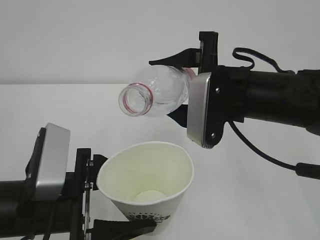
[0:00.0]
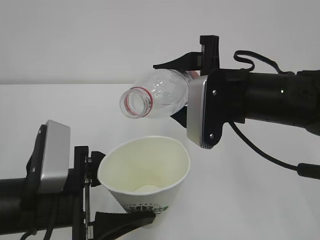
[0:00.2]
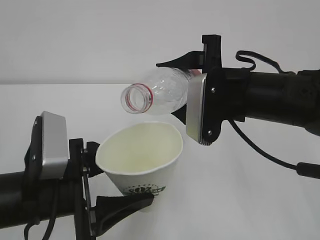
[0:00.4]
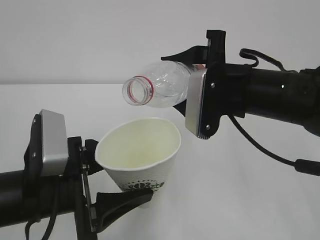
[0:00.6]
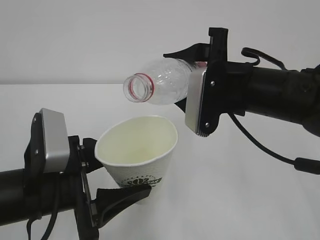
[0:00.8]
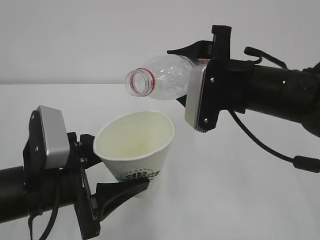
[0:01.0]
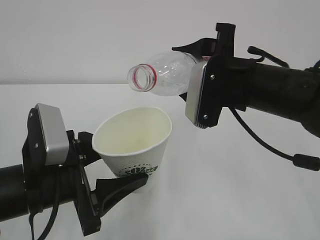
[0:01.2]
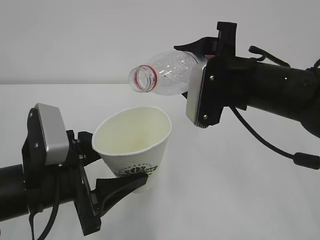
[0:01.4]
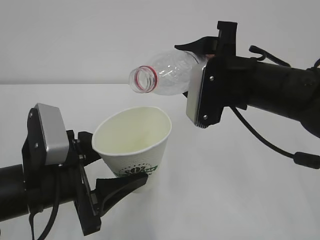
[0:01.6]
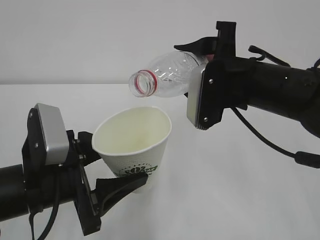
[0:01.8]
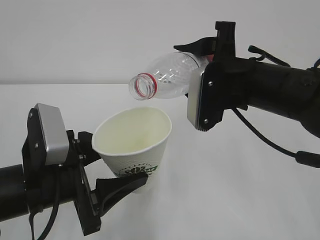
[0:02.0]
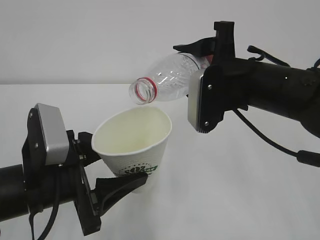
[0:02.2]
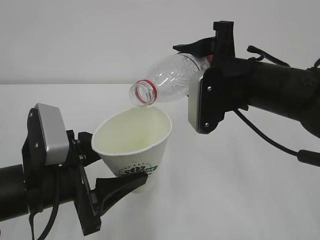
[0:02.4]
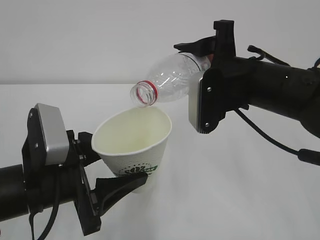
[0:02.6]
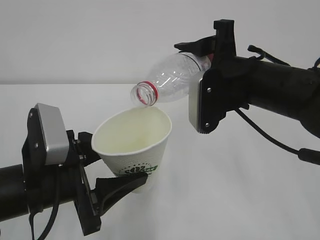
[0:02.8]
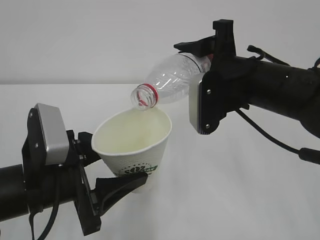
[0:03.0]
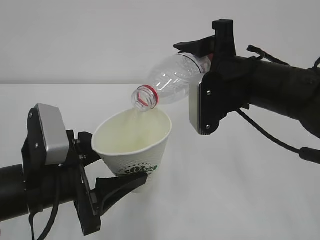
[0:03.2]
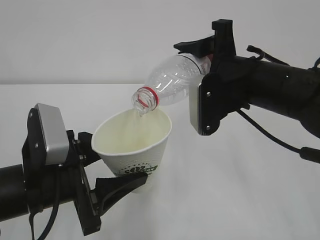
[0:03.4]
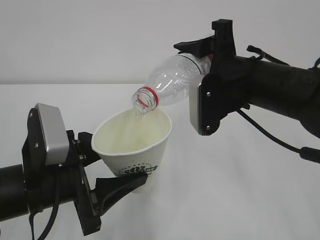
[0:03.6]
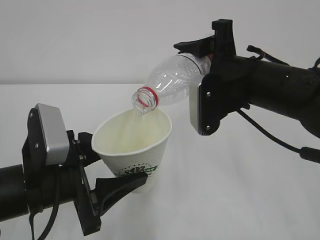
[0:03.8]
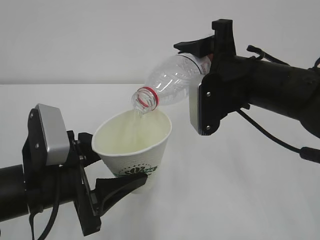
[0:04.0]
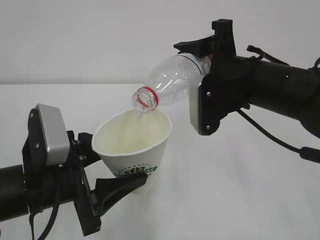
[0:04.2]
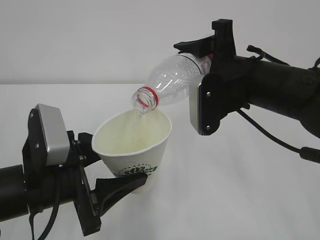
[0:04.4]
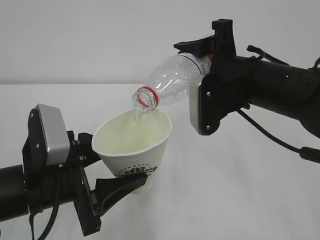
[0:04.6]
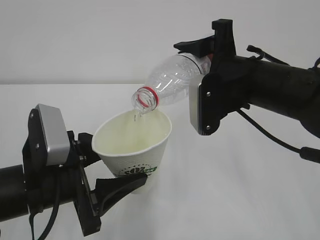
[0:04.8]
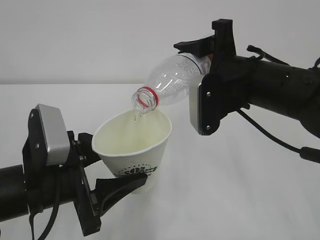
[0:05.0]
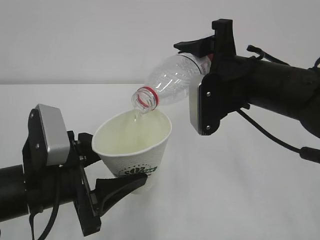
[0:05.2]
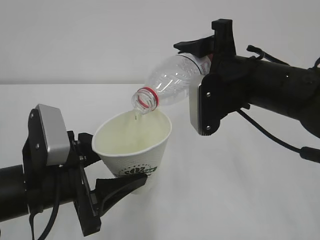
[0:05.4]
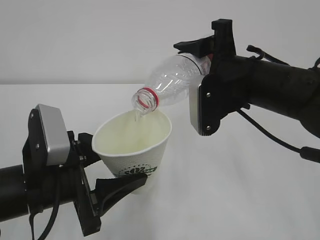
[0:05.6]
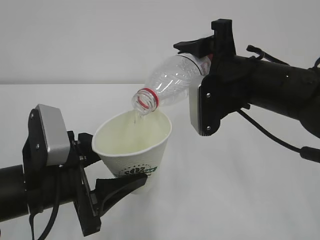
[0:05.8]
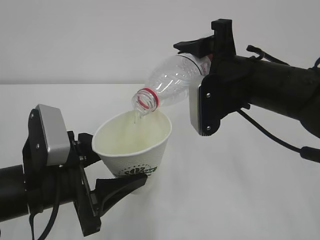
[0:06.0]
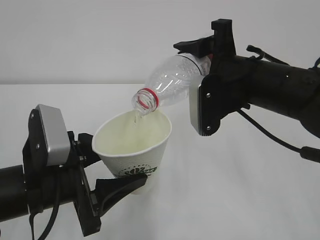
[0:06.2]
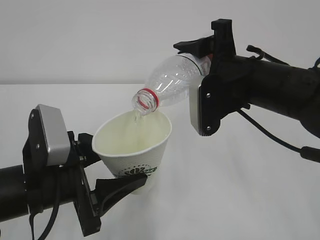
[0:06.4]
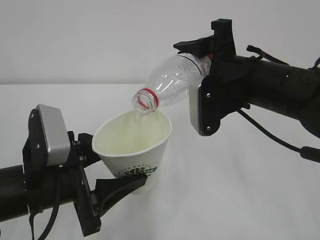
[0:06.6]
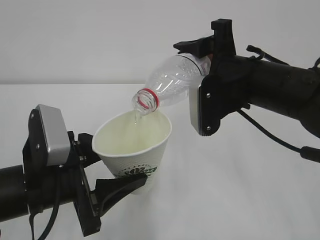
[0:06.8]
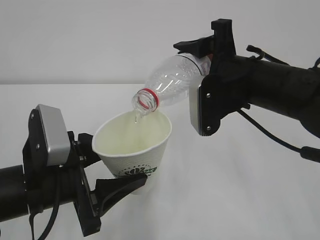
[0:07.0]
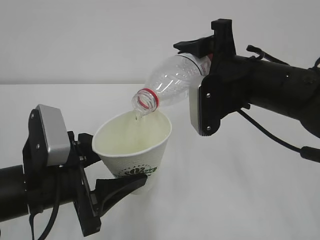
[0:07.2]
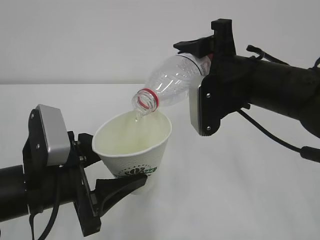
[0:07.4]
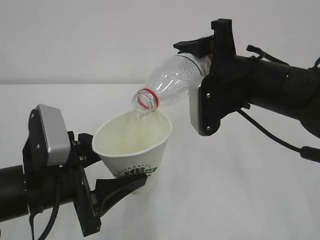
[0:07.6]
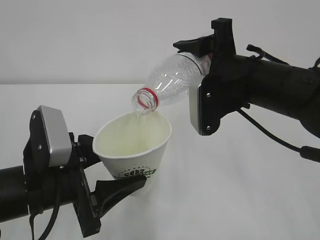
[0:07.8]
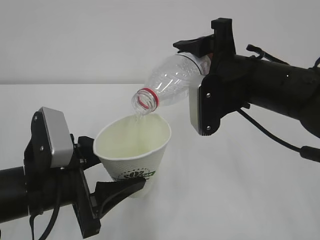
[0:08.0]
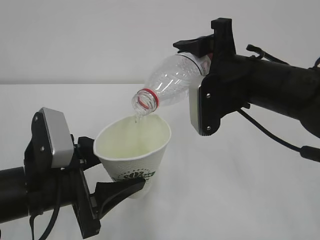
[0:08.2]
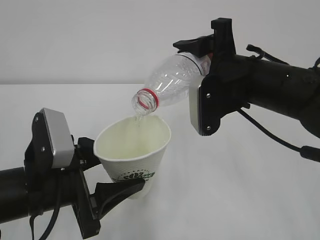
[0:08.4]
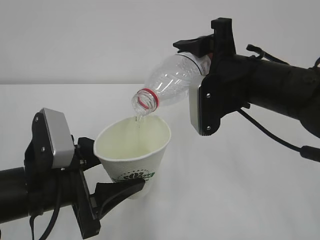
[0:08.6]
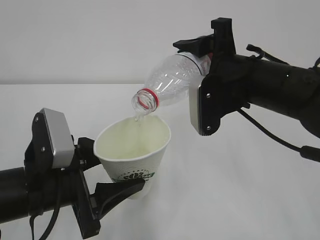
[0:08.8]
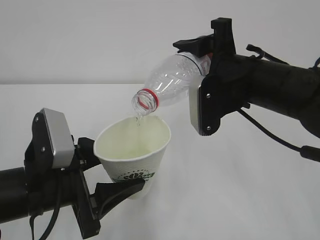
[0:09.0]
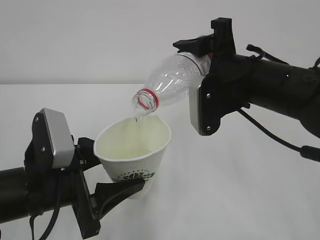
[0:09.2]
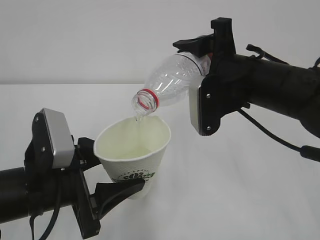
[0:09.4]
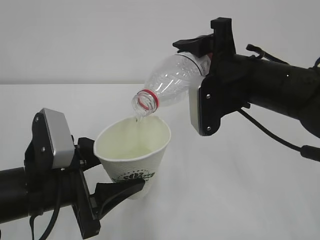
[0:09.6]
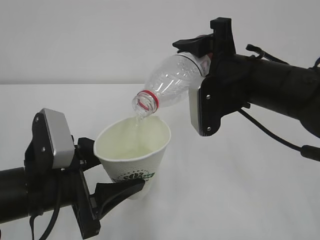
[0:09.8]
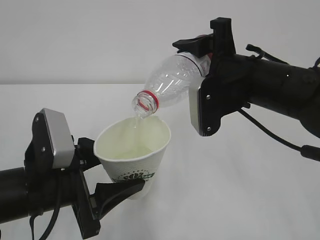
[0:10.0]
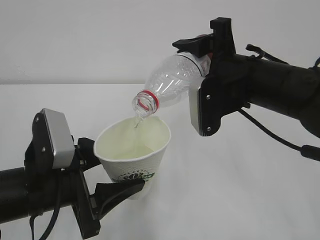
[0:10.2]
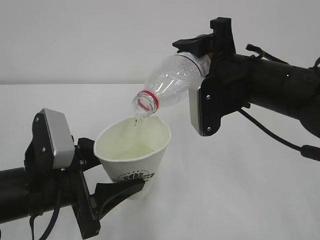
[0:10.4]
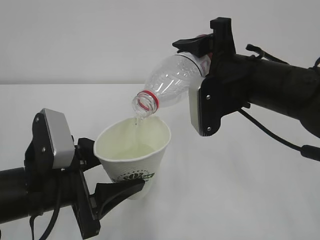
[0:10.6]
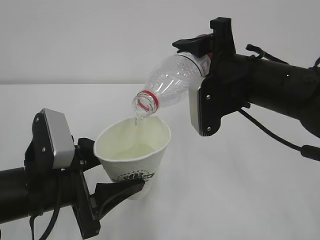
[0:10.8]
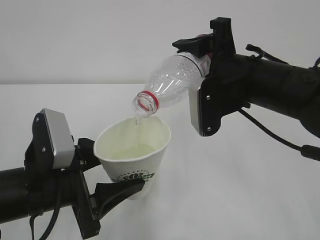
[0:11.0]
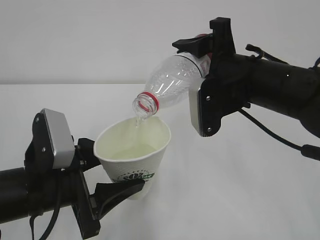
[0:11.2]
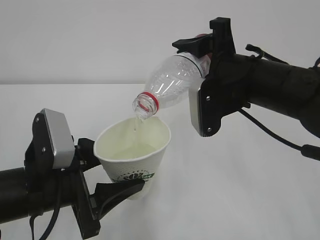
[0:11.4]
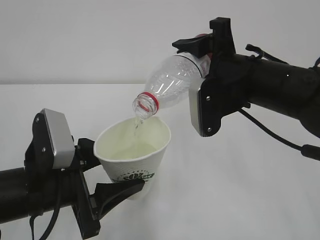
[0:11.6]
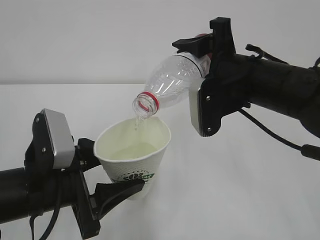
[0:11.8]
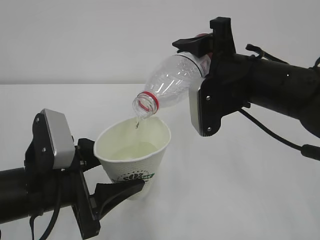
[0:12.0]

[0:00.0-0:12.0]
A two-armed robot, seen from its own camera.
0:01.6 to 0:03.0: The grippers move only a little.
0:03.0 to 0:09.0: The two grippers keep their place.
0:09.0 to 0:12.0: The two grippers keep their place.

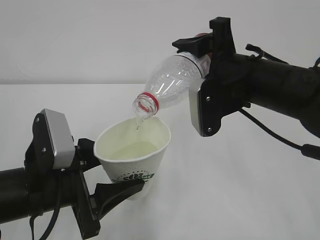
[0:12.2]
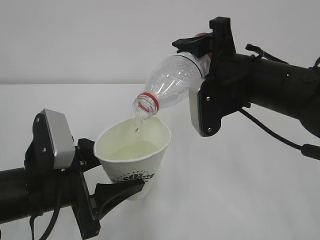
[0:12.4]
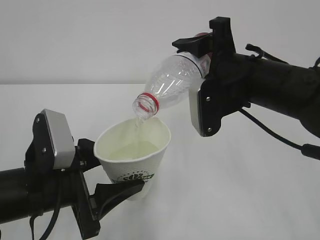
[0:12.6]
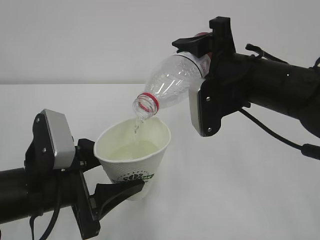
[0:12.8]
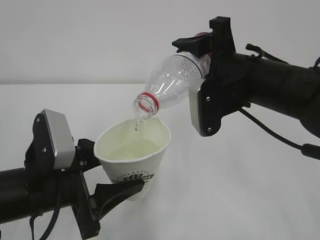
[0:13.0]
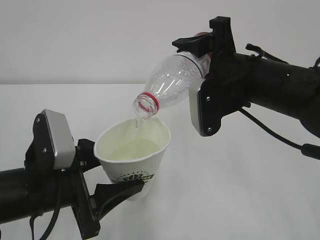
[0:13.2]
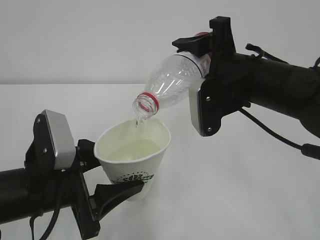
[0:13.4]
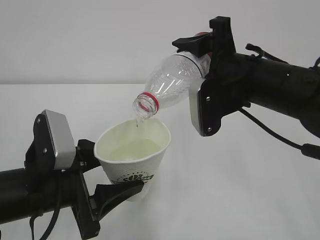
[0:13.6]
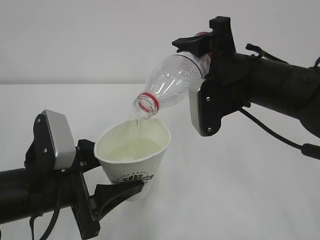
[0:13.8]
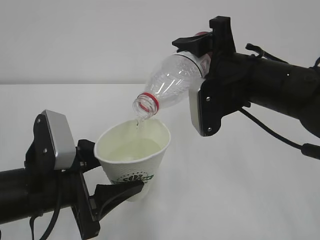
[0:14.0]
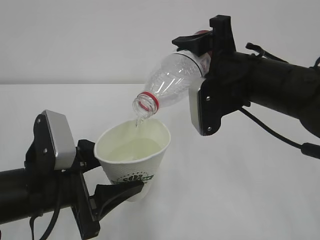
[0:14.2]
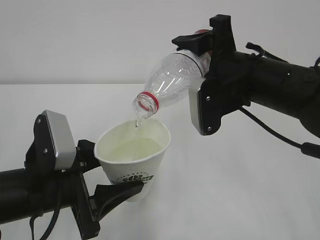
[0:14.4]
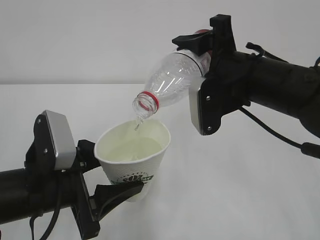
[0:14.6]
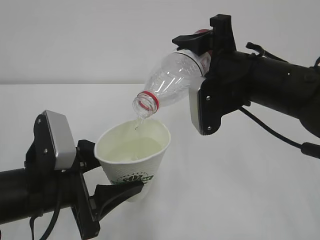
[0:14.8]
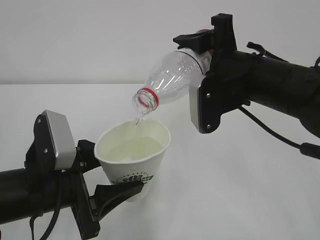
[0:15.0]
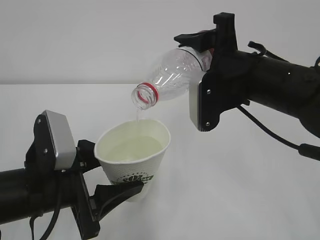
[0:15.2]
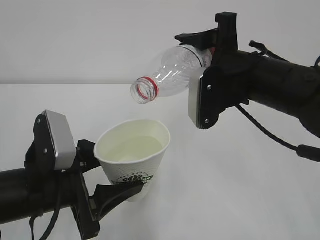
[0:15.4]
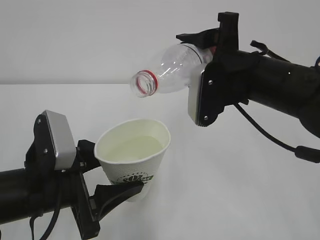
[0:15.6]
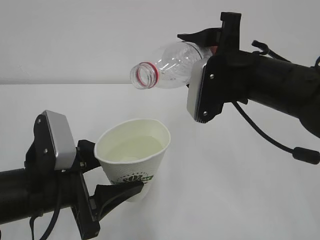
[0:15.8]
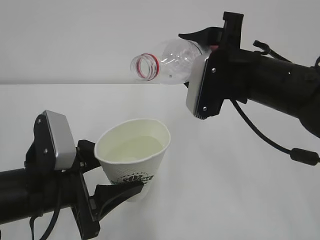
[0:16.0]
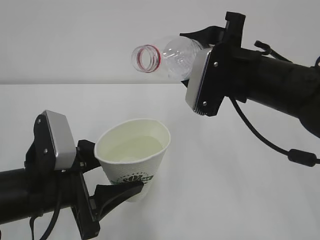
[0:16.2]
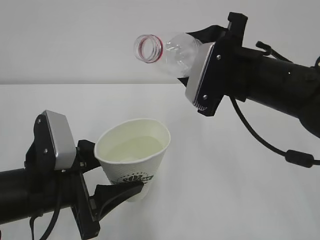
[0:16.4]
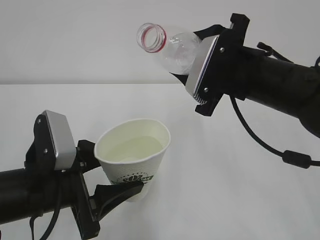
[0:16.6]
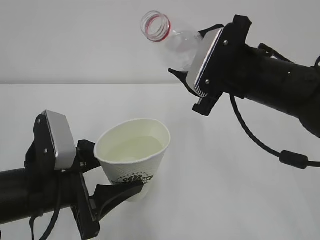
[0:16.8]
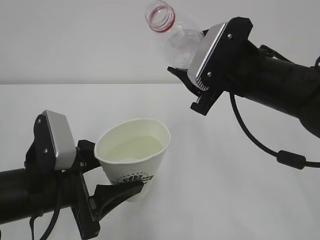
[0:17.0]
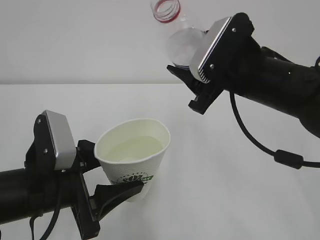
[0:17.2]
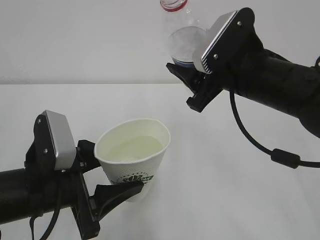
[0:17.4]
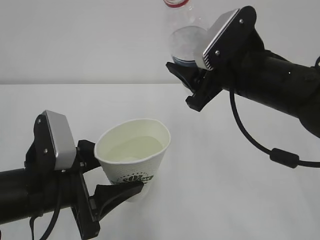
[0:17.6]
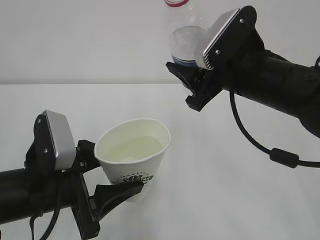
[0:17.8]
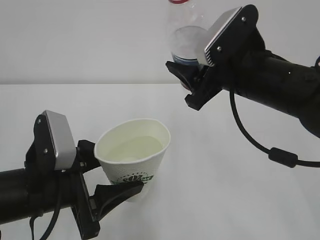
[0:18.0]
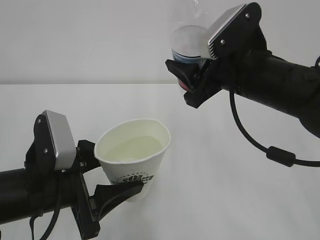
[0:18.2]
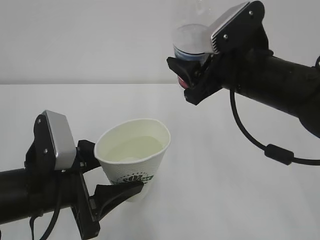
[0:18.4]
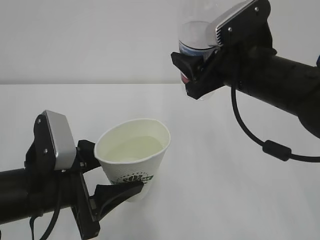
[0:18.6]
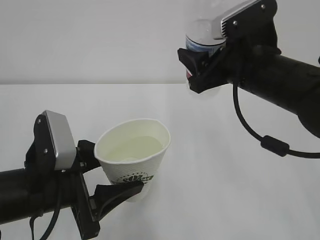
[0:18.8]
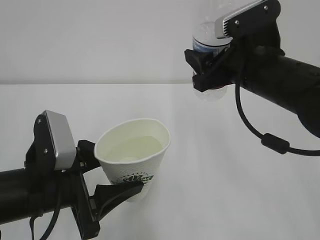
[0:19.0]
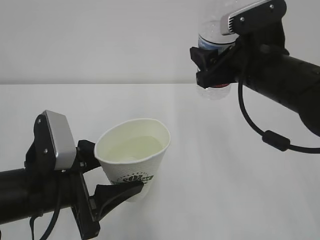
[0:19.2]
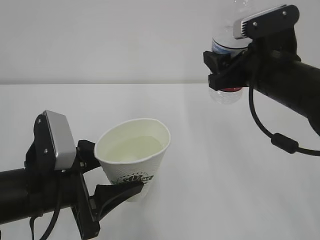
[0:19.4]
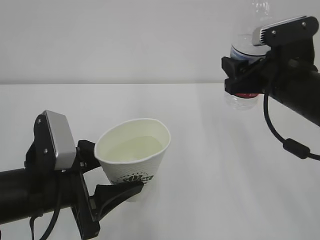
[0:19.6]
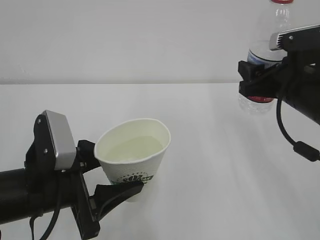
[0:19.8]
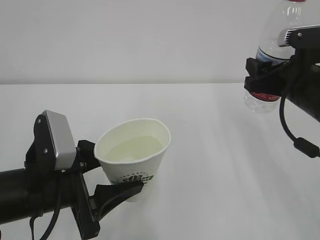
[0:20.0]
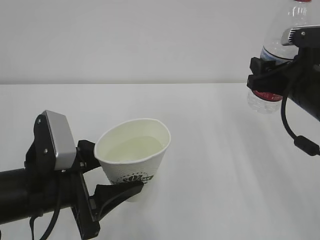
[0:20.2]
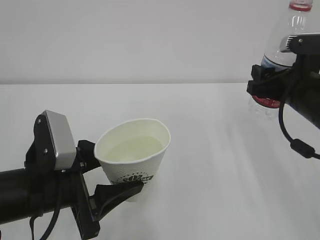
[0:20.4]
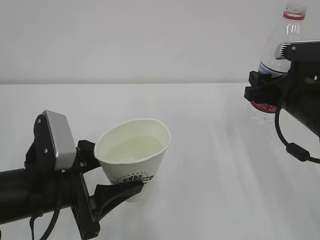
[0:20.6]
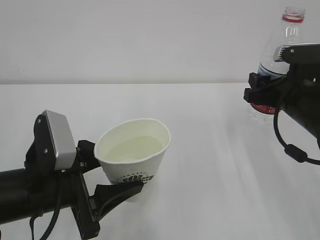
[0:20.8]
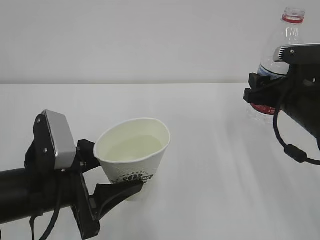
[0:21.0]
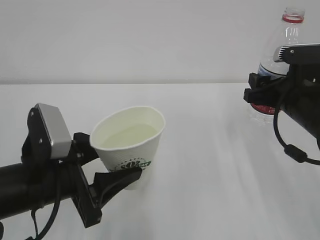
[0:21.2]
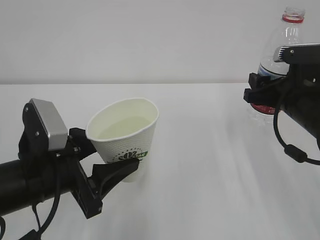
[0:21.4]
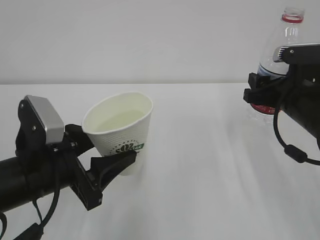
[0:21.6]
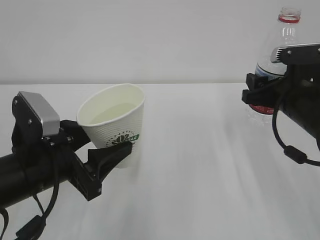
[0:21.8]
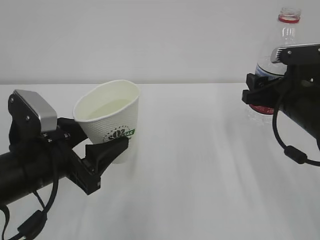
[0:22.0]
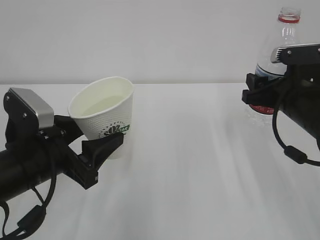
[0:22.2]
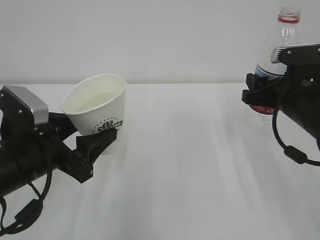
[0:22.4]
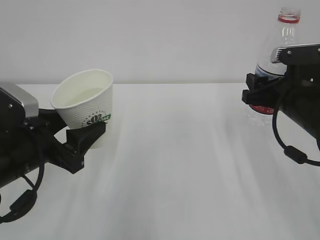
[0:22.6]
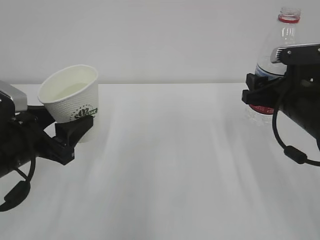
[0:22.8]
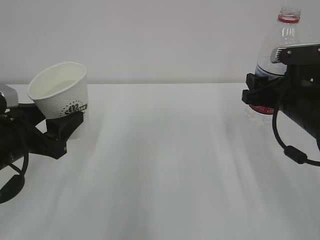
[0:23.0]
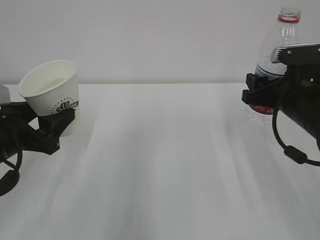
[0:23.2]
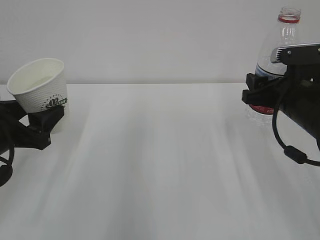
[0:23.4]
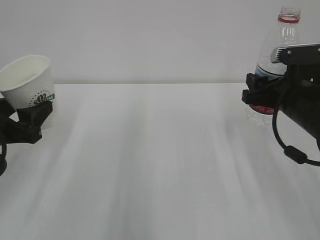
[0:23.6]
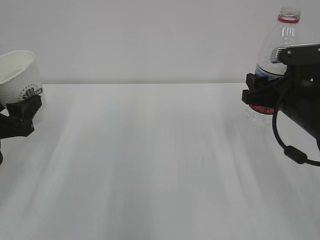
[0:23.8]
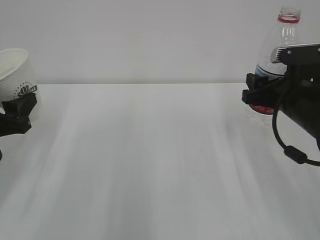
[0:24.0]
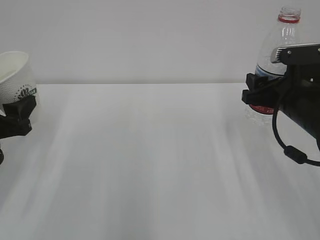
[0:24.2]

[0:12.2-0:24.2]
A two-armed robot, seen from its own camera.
0:12.2 to 0:15.2: Both grippers stay put.
0:18.2 to 0:19.8: The right gripper travels to the right by approximately 10 cm.
0:19.8 to 0:21.2: The grippers move only a little.
0:21.2 to 0:22.6: The left gripper ends up about 5 cm from where it was.
0:22.6 to 0:24.2: The left gripper moves to the left, about 10 cm.
